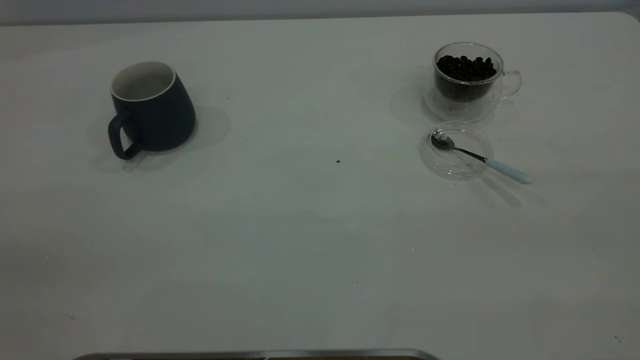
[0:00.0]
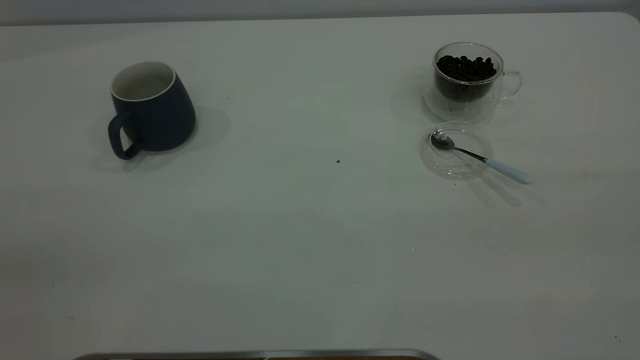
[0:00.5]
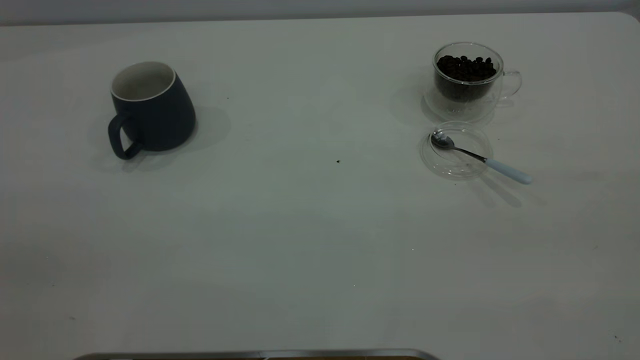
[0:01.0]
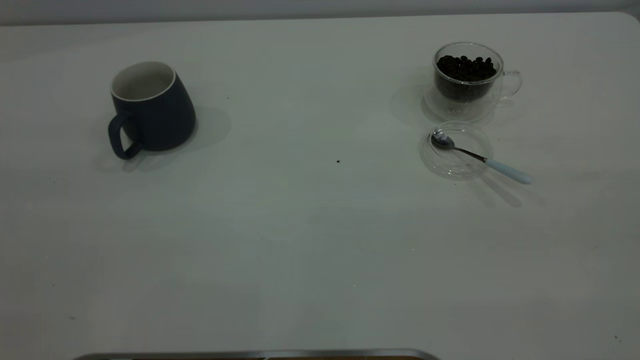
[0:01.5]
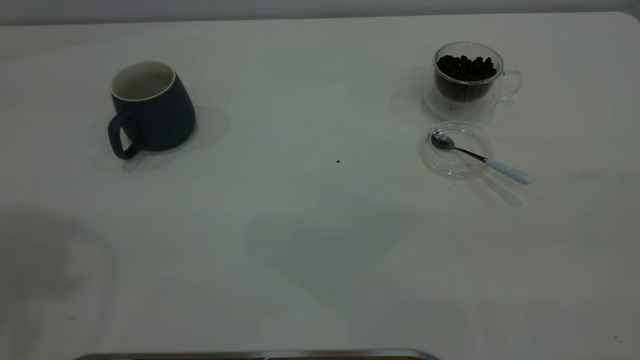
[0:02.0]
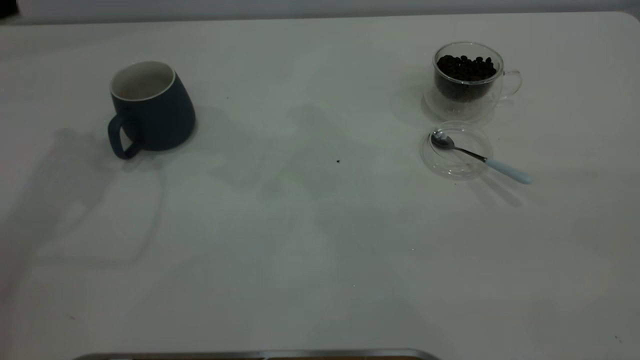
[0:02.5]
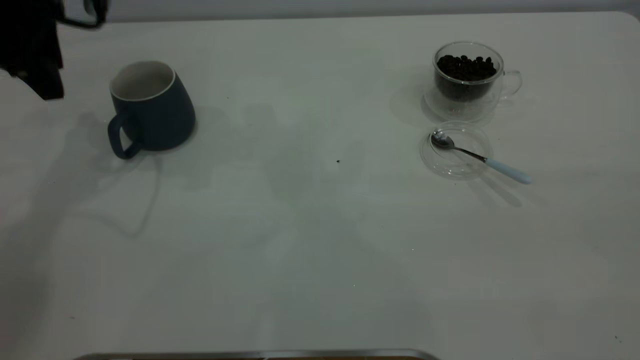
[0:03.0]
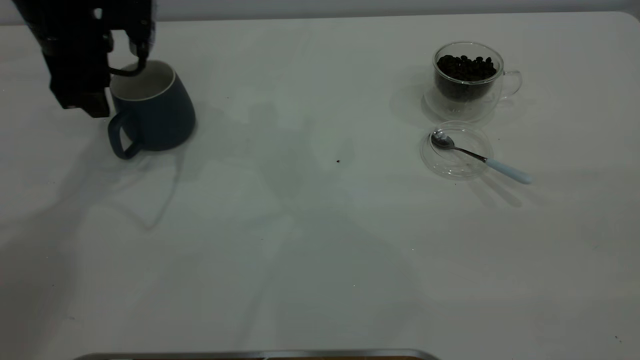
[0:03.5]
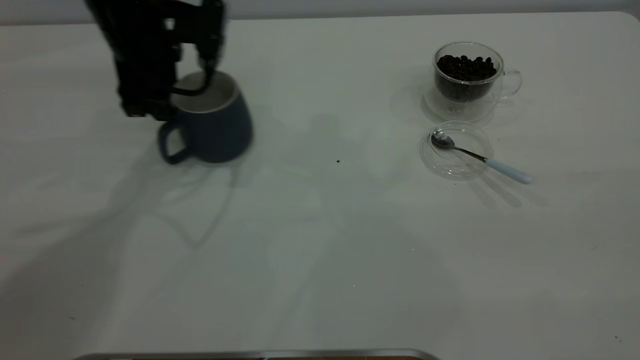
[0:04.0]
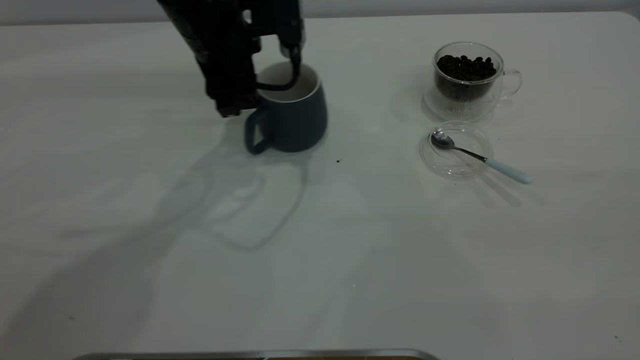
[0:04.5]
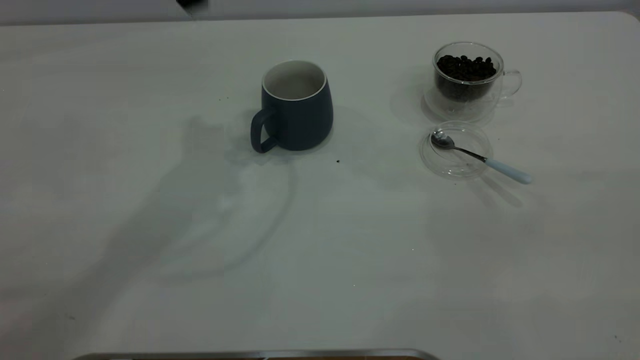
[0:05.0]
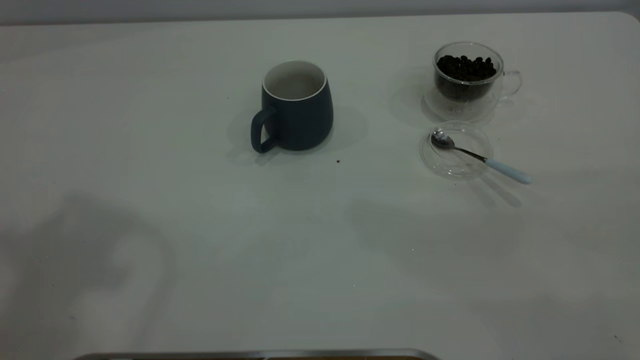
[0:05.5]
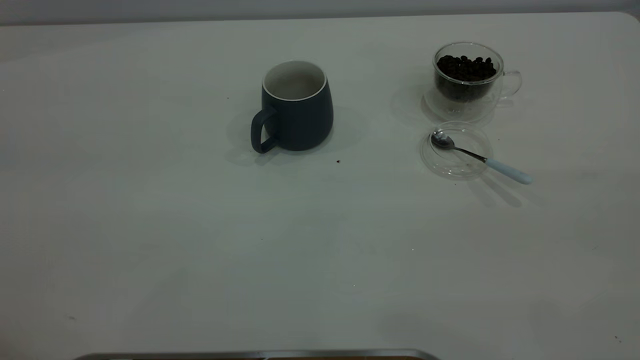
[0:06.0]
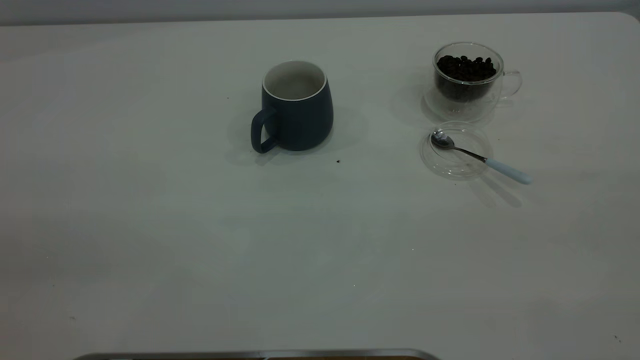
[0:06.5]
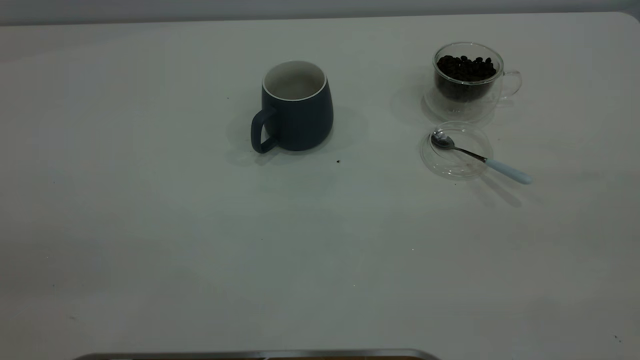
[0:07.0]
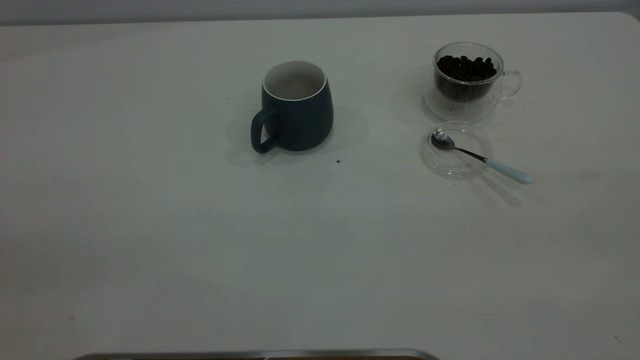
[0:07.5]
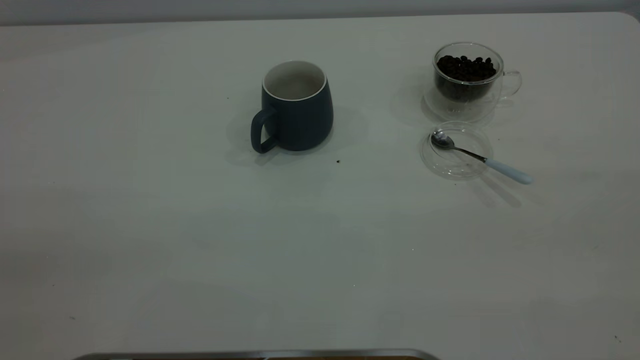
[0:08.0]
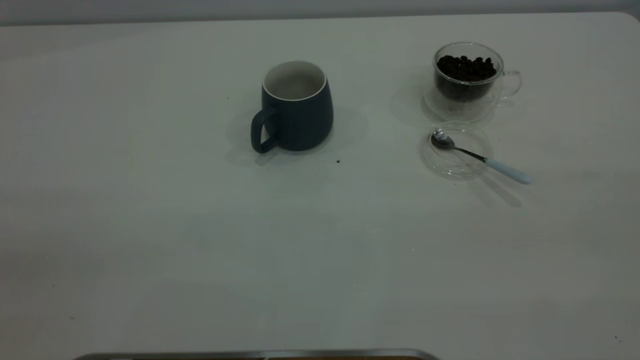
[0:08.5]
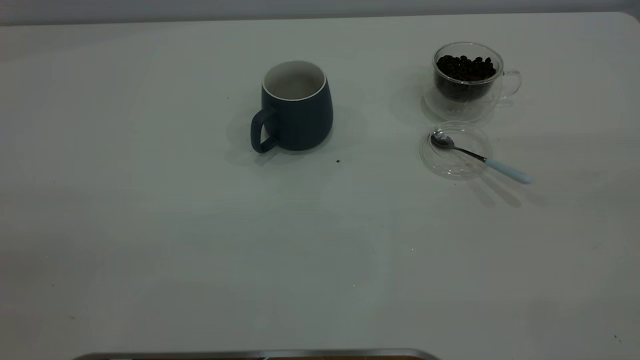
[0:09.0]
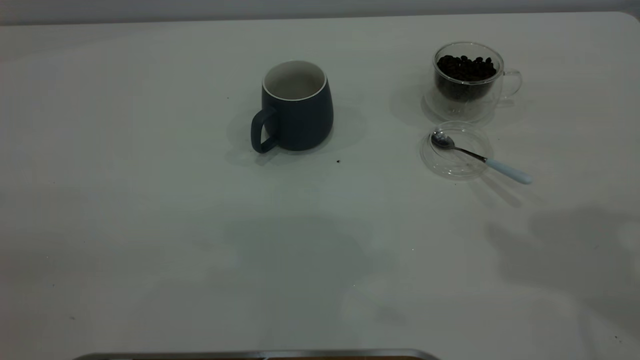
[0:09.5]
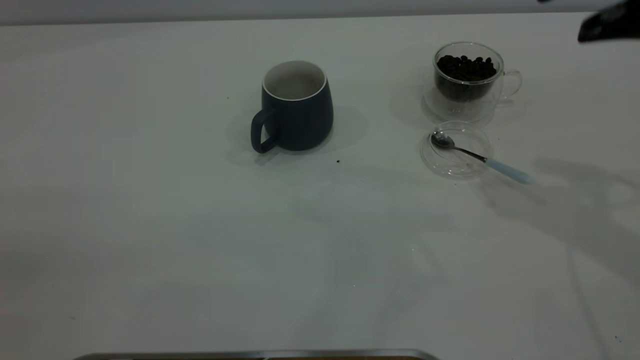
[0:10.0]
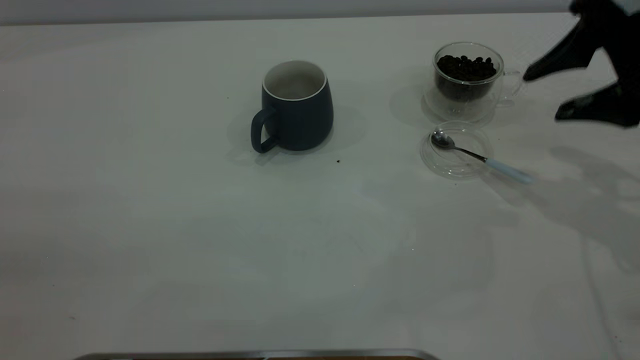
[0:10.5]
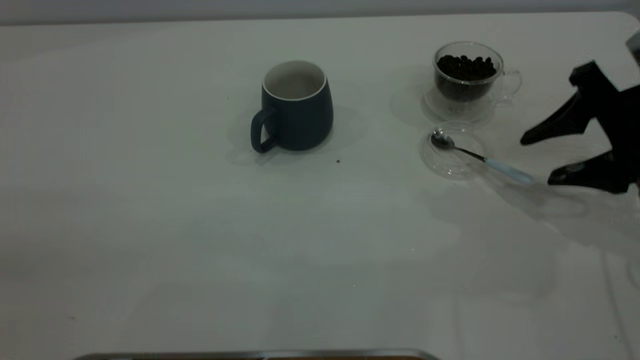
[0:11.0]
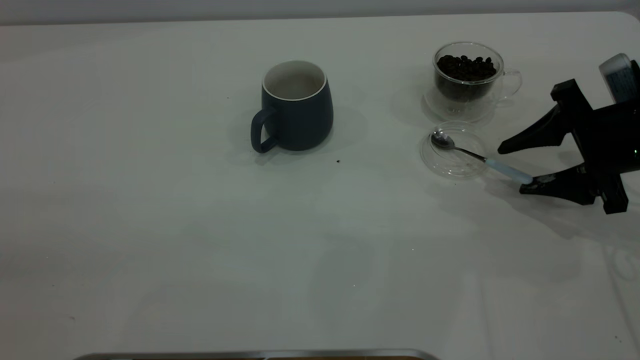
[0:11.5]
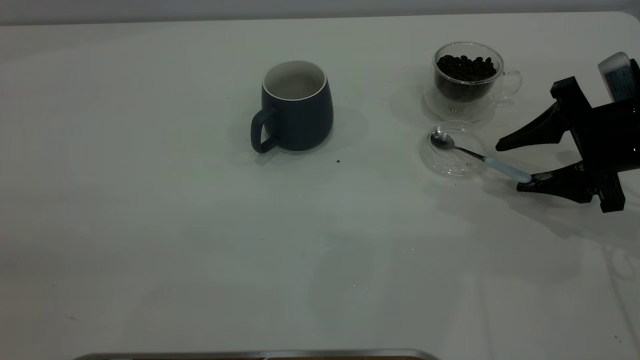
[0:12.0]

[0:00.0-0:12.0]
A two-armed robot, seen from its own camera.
Task of the whole recording: the left gripper place the grey cup in the center of the table, the right gripper take the blue spoon from the cup lid and scoop out the coffee beans from the coffee cup and put them into the grey cup, the right gripper put the spoon back into the cup lid.
Step, 0:00.0 to 0:04.5: Move the cup to the center of view.
0:02.0 to 0:04.0: The left gripper goes some 35 cm downward, forward and to the right.
0:04.0 to 0:06.0: The left gripper heads backward and upward, covering about 40 cm.
0:08.0 to 0:10.0: The right gripper heads forward, covering roughly 30 cm.
0:10.0 to 0:12.0: The right gripper shifts about 20 cm downward.

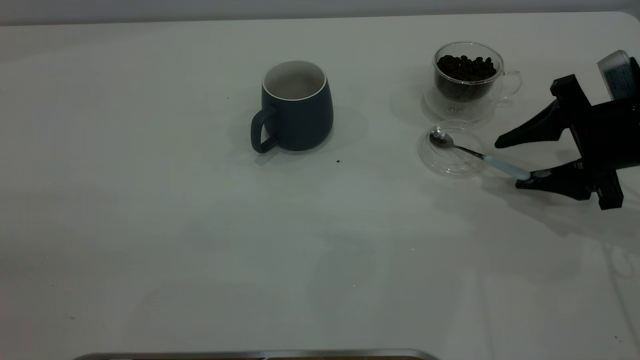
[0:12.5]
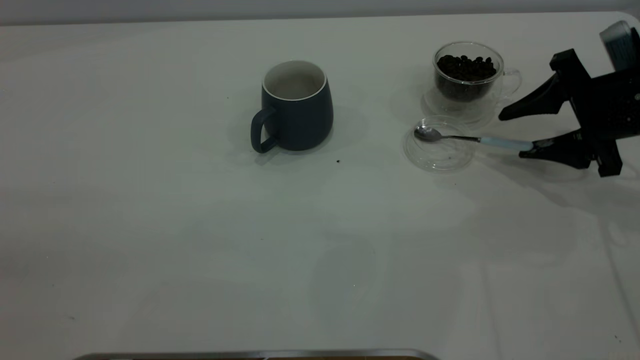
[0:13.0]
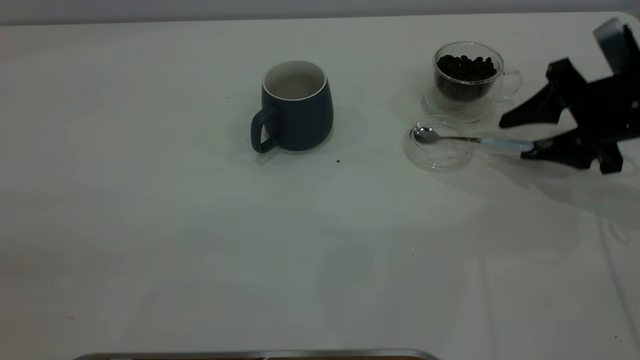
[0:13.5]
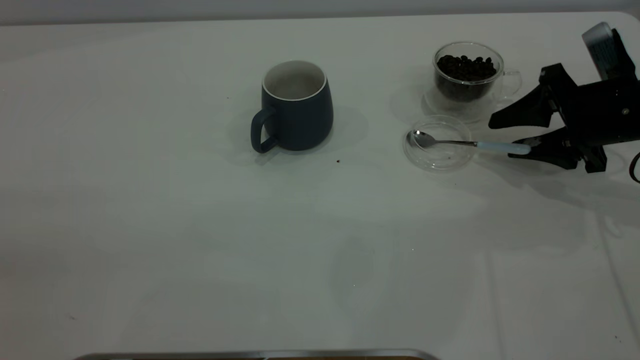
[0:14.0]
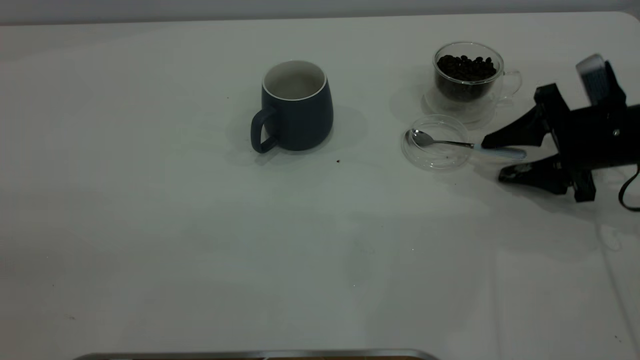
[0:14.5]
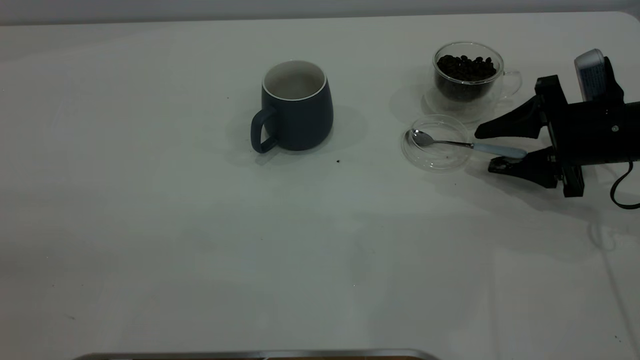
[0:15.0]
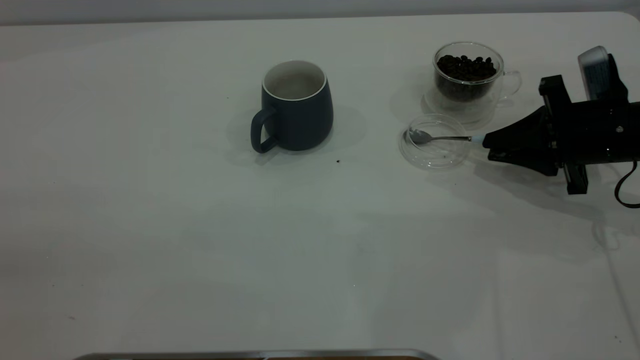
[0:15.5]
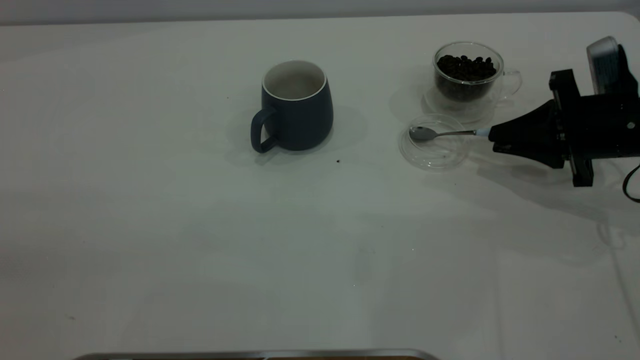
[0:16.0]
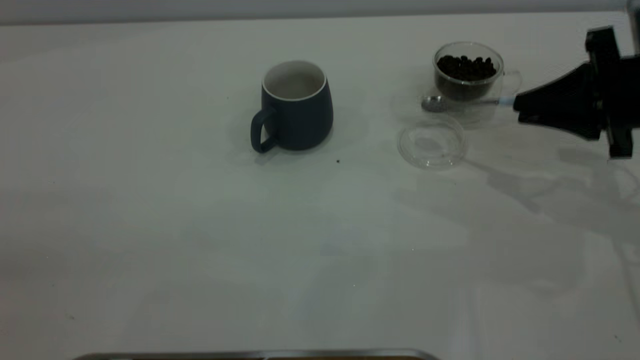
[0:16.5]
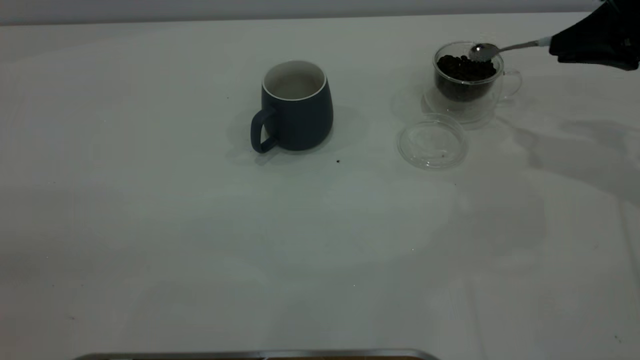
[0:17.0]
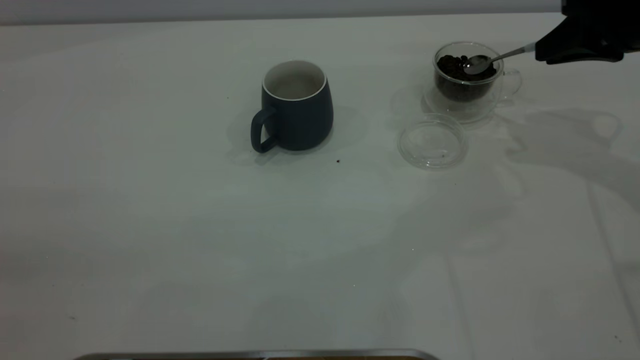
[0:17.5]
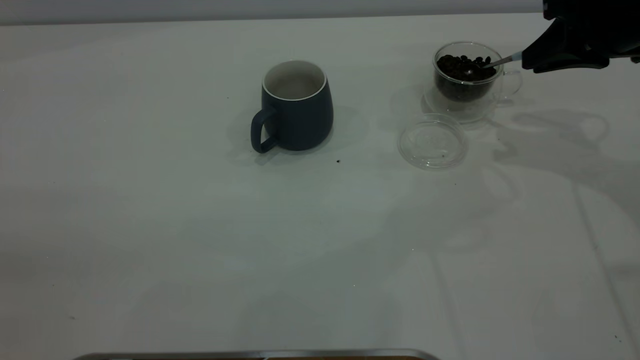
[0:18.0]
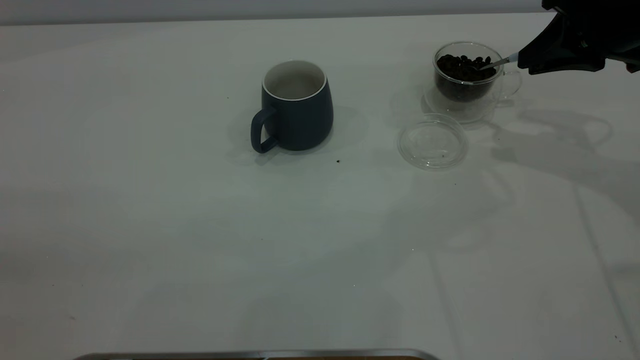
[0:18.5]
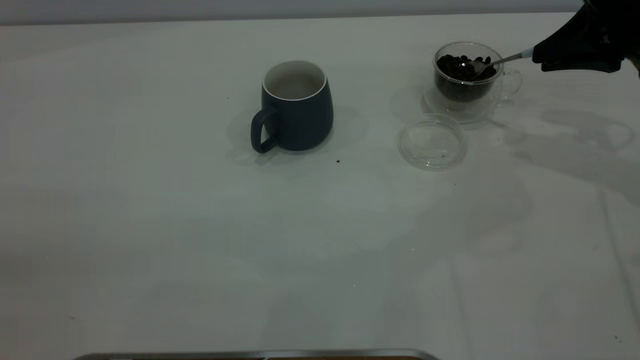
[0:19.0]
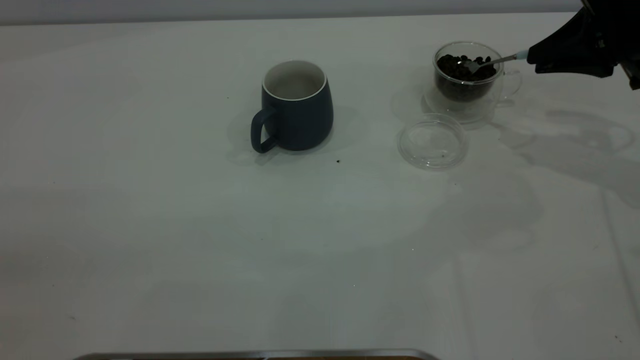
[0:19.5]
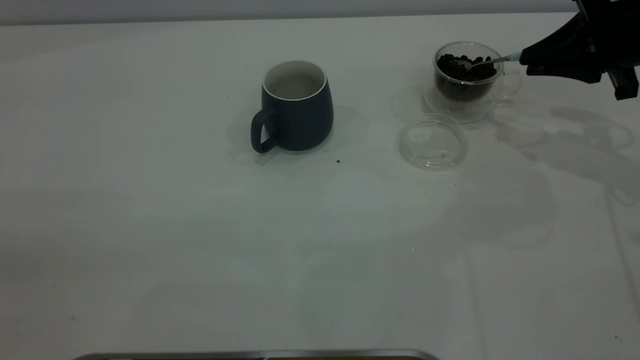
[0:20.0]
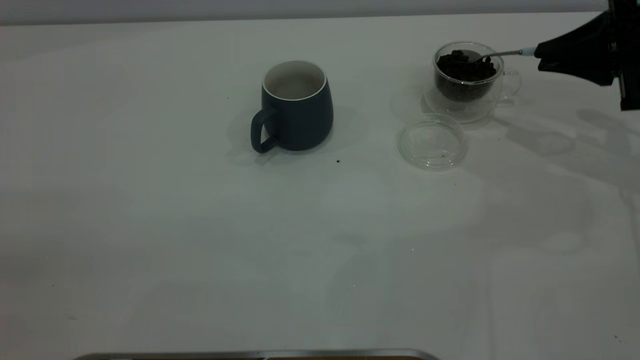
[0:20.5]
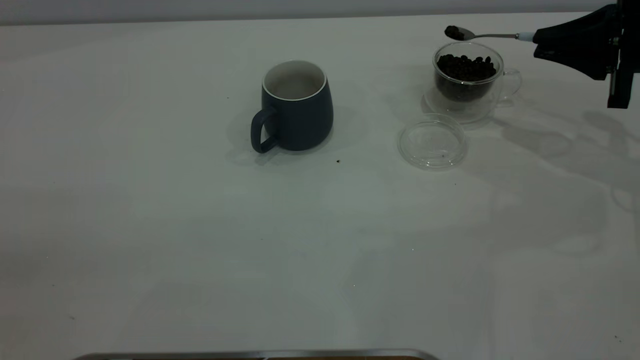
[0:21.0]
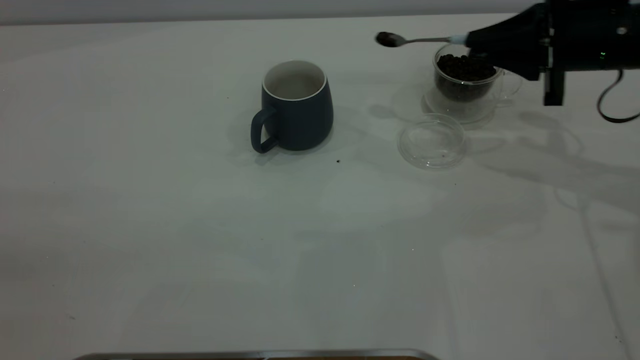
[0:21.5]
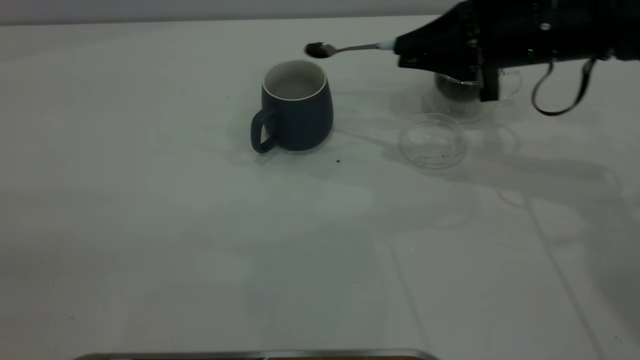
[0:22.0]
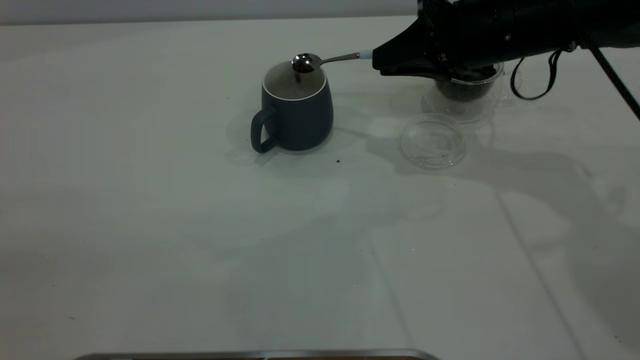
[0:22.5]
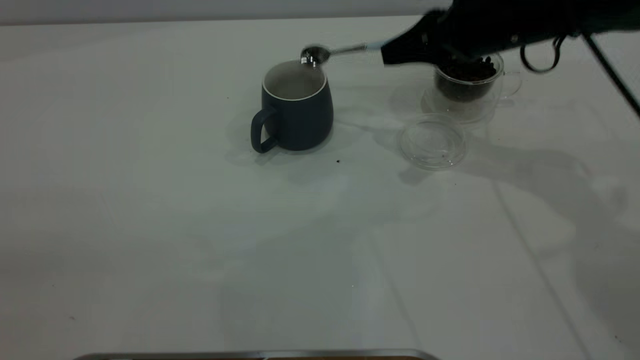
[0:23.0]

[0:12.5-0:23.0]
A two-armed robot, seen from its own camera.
Task of the whole recording: the left gripper place the grey cup in the center of the table, the right gripper take the blue spoon from the cup lid and scoop out the coffee beans from the coffee cup and put them into the grey cup, the right gripper put the spoon back into the cup lid.
Step, 0:12.5 to 0:16.0: Pick up the spoon.
Step, 0:17.0 to 0:23.0: Scoop a spoonful of beans into the cup.
0:12.5 to 0:14.5: The grippers stay close to where they were, moving slightly.
0:14.5 to 0:16.5: The right gripper moves upward, approximately 10 cm, and closes its fingers.
0:16.5 to 0:19.0: The right gripper travels forward by roughly 5 cm.
0:21.0 to 0:23.0: The right gripper shifts approximately 15 cm to the left.
